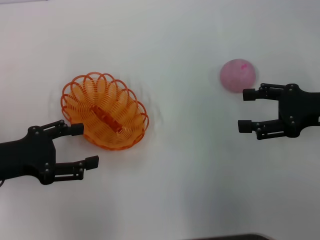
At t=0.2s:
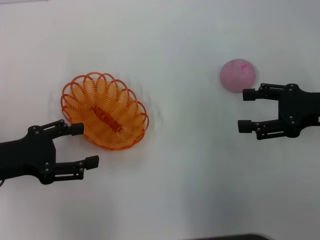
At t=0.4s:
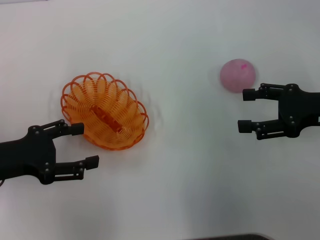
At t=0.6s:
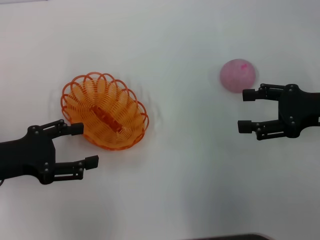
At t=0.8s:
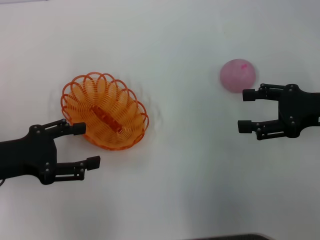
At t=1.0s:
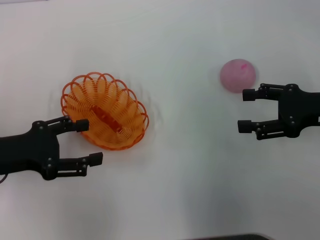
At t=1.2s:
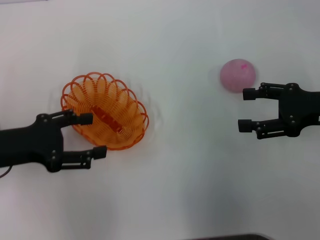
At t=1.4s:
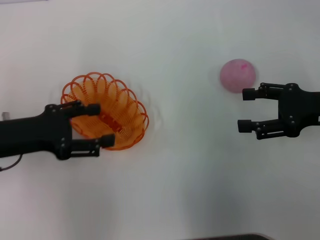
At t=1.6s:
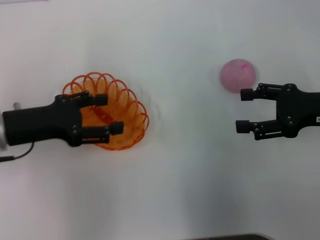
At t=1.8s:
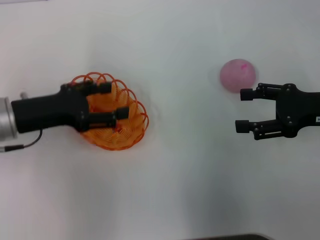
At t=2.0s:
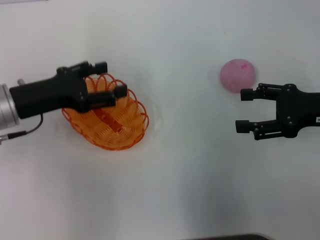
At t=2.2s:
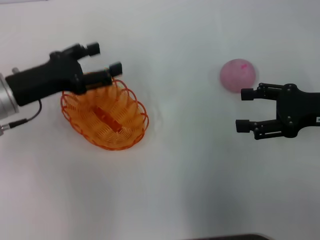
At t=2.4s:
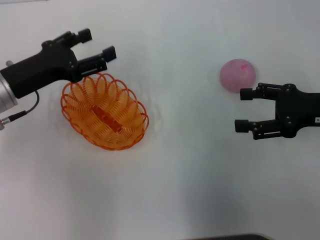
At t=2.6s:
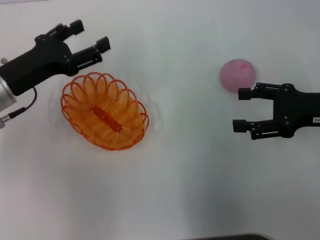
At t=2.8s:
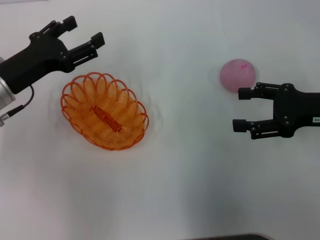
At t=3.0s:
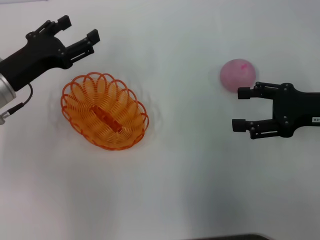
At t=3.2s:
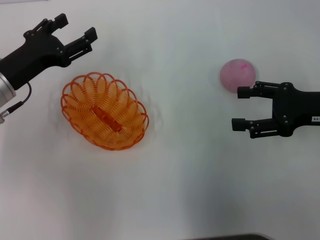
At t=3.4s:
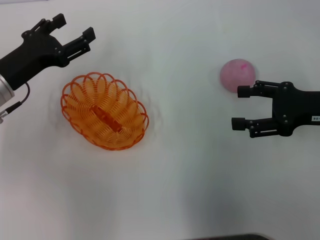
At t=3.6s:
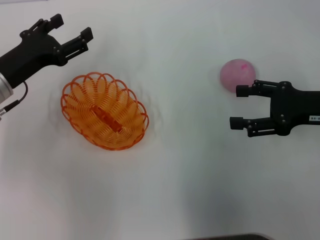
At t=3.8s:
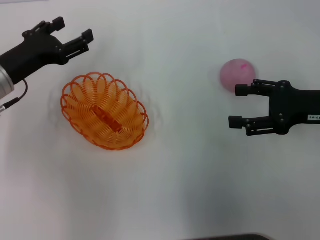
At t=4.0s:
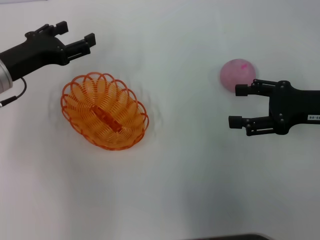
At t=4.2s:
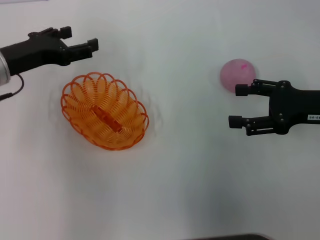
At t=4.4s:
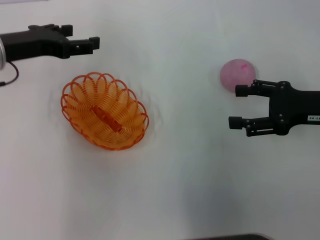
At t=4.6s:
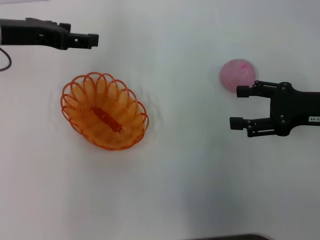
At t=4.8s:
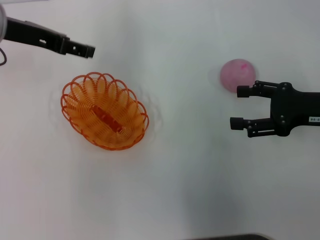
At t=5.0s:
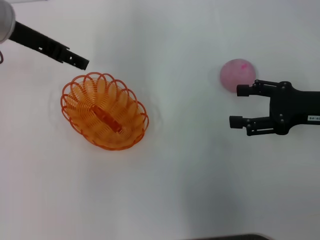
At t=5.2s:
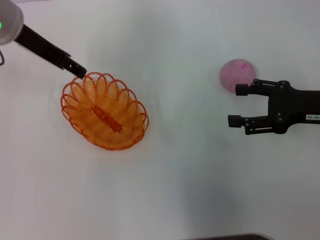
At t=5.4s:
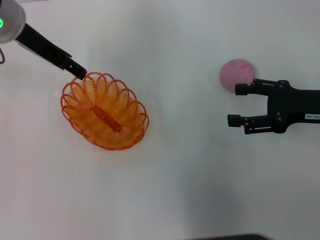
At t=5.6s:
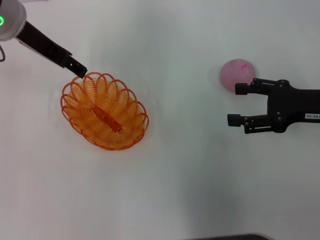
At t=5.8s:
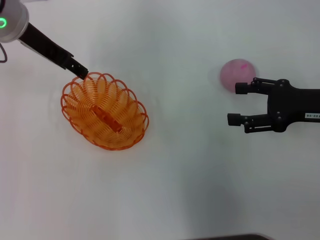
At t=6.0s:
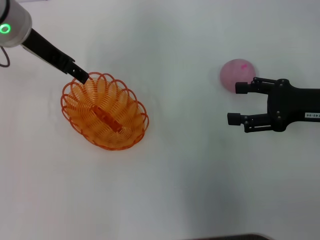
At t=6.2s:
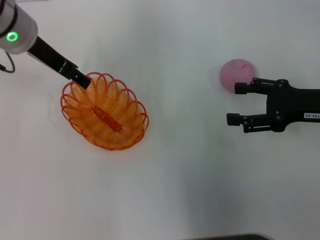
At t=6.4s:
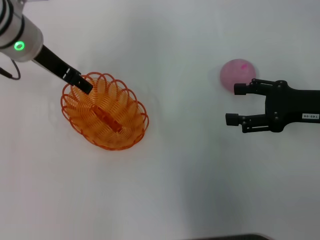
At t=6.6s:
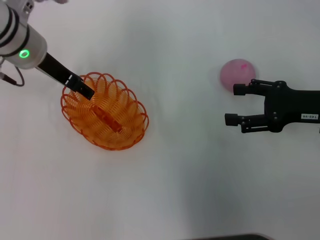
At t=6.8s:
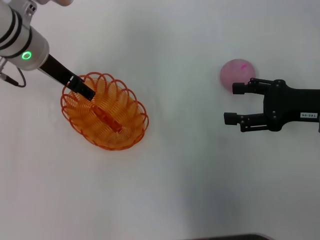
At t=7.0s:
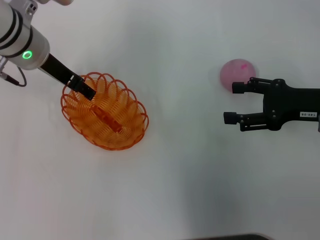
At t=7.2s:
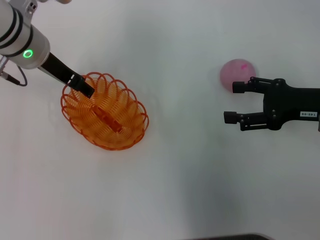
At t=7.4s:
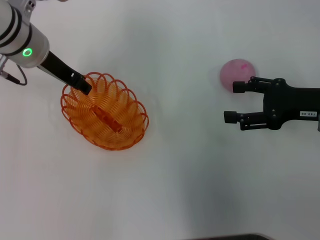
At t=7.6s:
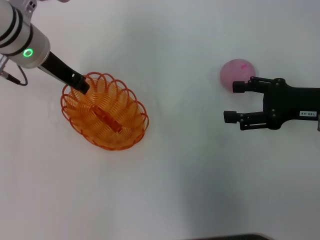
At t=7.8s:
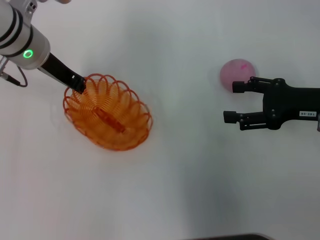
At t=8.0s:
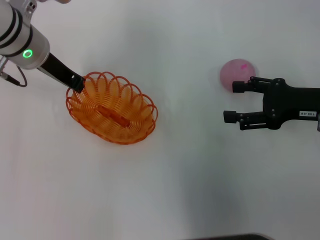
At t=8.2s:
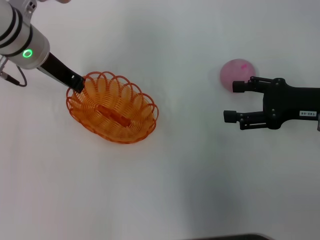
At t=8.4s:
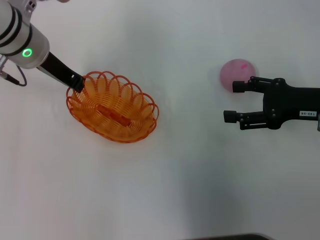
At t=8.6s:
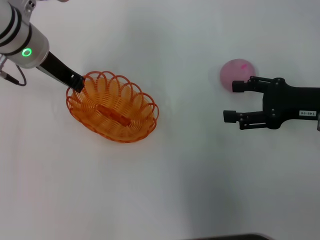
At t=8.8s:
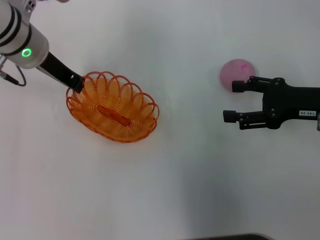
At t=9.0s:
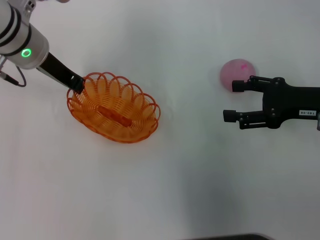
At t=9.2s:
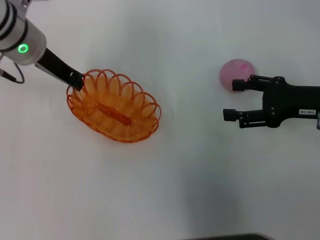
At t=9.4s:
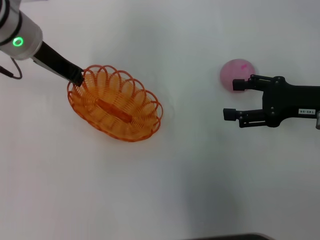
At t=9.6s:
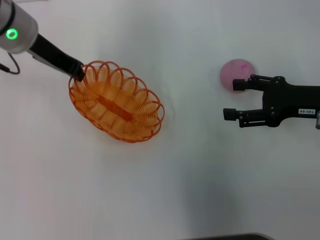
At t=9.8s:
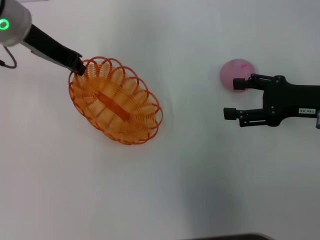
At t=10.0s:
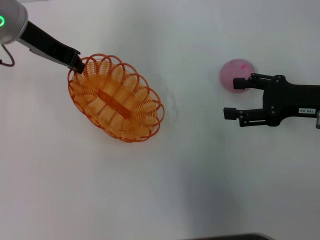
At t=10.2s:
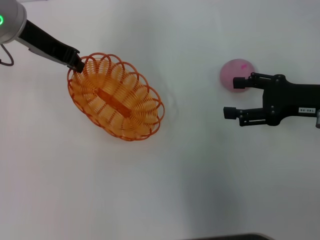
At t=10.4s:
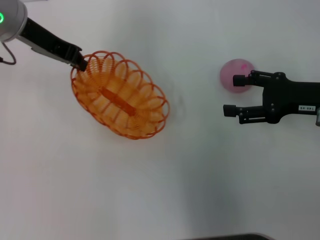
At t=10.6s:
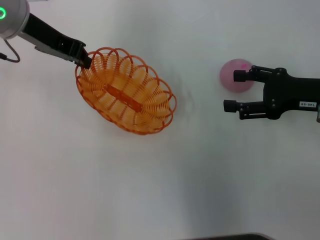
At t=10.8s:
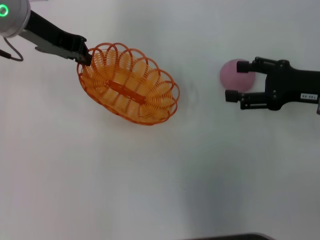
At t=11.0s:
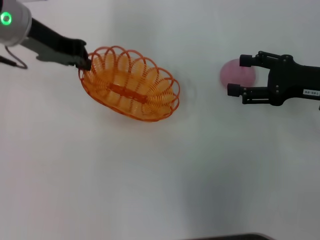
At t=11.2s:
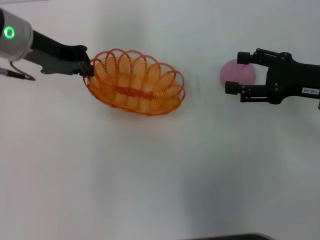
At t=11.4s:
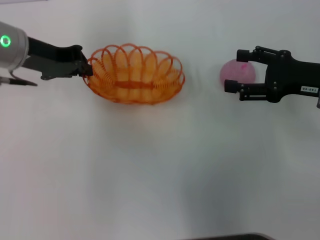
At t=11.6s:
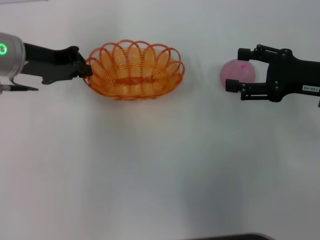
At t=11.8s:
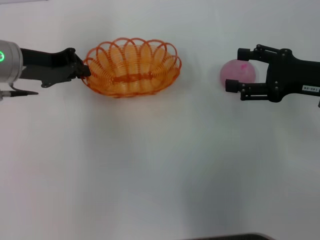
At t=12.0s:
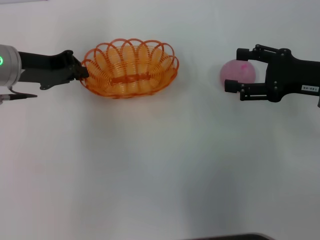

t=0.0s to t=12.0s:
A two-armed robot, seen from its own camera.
Step, t=0.0s to t=10.2s: Pick up the basket with the left gripper.
t=0.0s to t=1.6s: The left gripper moves roughly 5 cm.
t=3.0s to t=4.4s: The left gripper shifts roughly 5 cm upward.
t=4.4s to t=6.0s: The left gripper heads to the right and upward, covering approximately 10 cm.
t=6.0s to t=7.6s: The left gripper closes up.
t=7.6s to t=9.0s: The left gripper closes.
t=9.0s to t=10.4s: The left gripper shifts roughly 5 cm upward.
t=10.4s to t=12.0s: The left gripper heads downward, covering some 10 cm.

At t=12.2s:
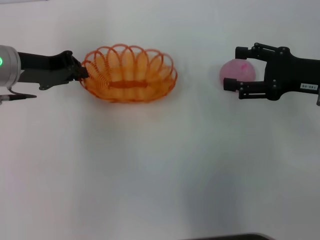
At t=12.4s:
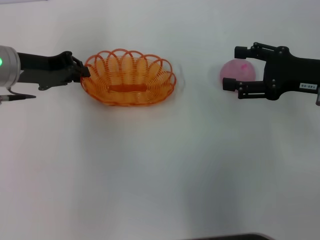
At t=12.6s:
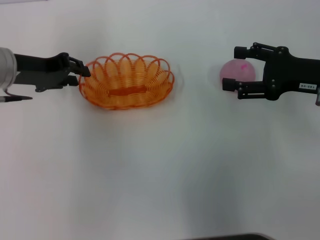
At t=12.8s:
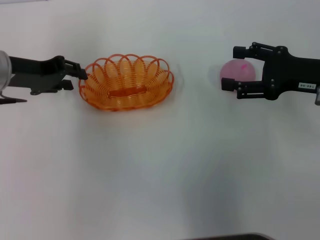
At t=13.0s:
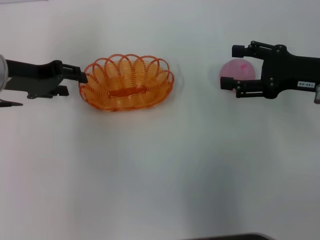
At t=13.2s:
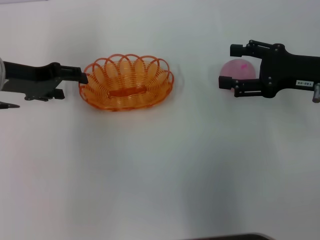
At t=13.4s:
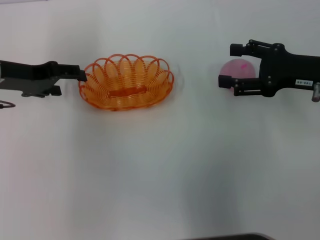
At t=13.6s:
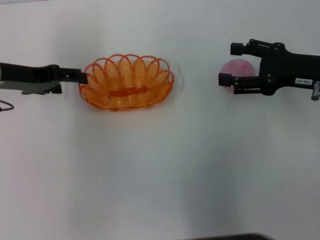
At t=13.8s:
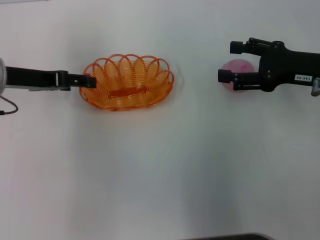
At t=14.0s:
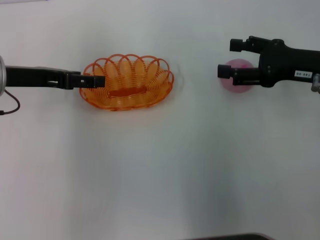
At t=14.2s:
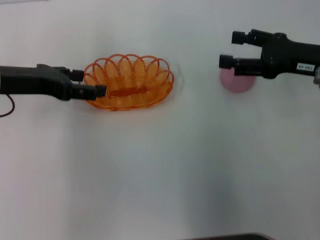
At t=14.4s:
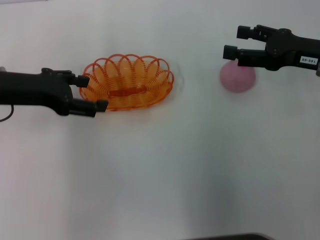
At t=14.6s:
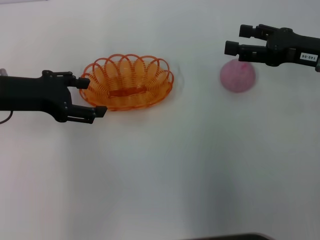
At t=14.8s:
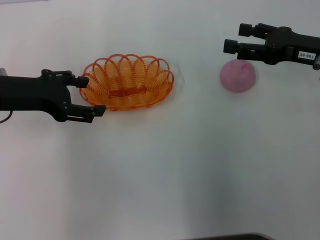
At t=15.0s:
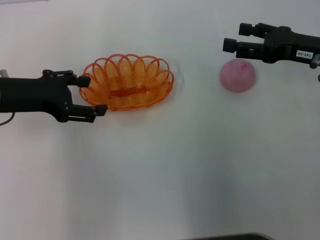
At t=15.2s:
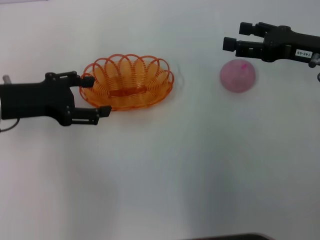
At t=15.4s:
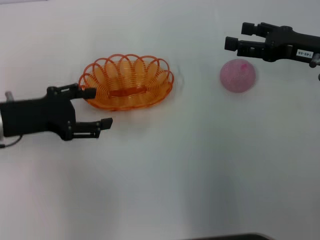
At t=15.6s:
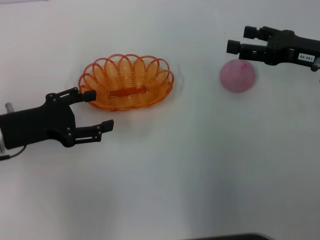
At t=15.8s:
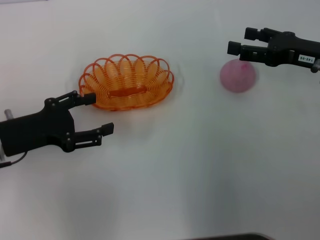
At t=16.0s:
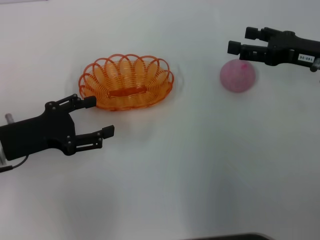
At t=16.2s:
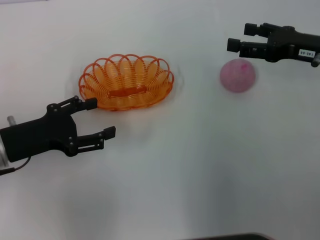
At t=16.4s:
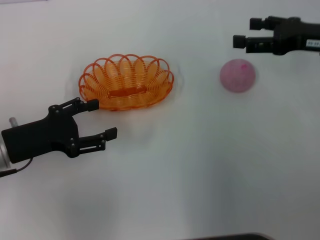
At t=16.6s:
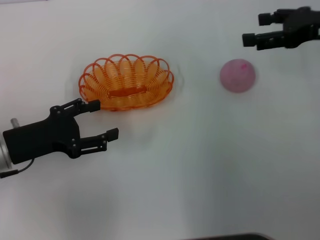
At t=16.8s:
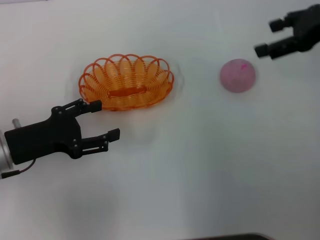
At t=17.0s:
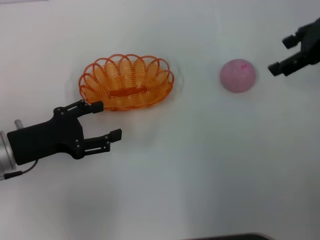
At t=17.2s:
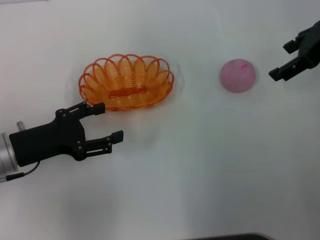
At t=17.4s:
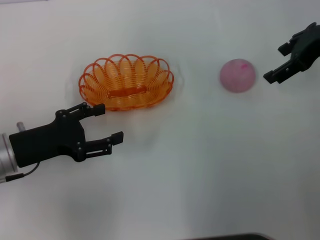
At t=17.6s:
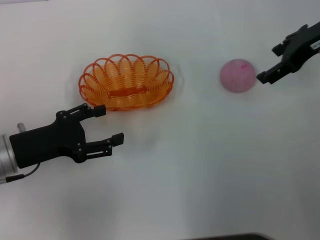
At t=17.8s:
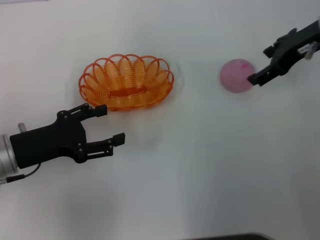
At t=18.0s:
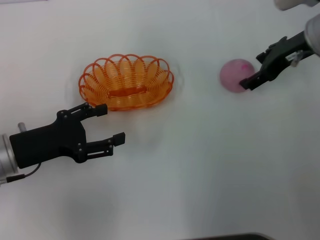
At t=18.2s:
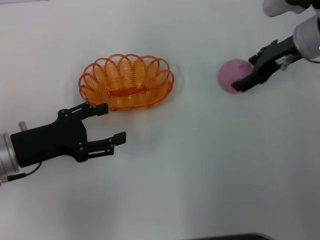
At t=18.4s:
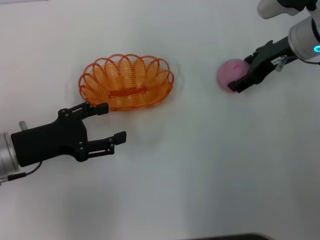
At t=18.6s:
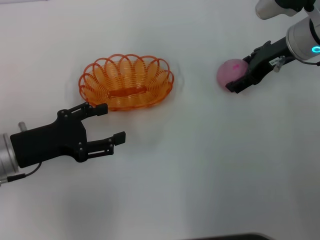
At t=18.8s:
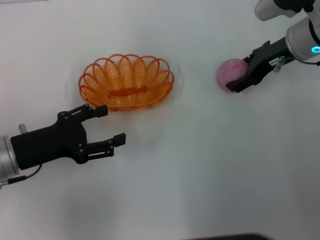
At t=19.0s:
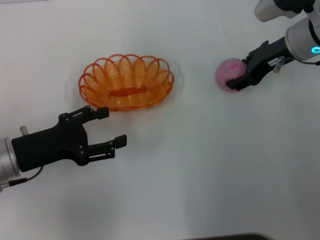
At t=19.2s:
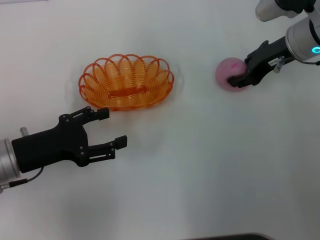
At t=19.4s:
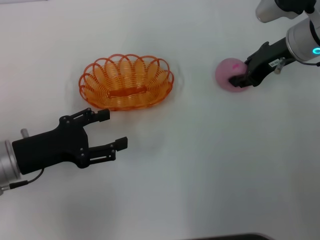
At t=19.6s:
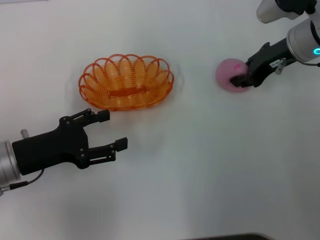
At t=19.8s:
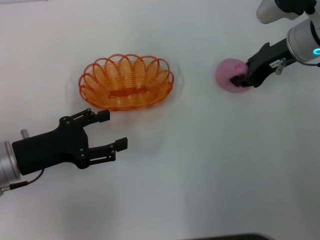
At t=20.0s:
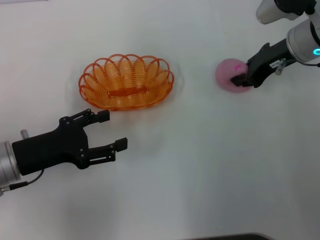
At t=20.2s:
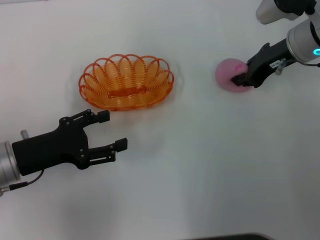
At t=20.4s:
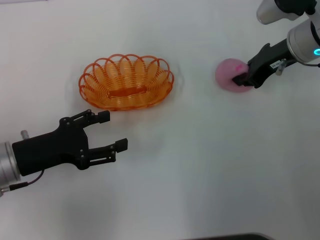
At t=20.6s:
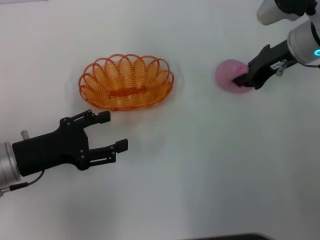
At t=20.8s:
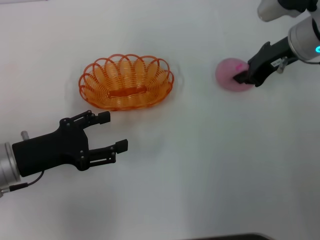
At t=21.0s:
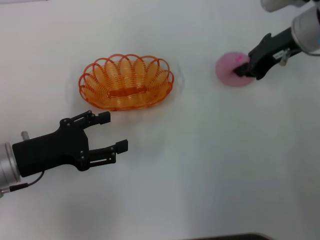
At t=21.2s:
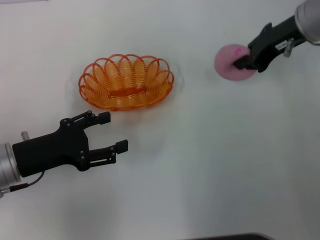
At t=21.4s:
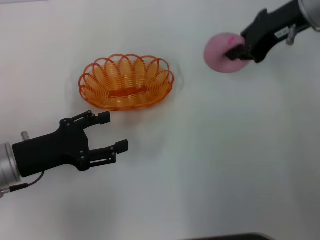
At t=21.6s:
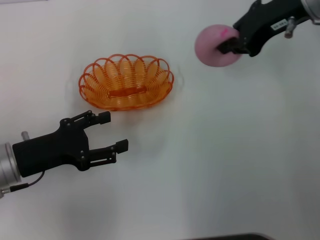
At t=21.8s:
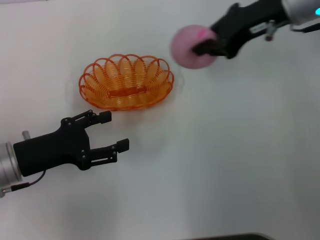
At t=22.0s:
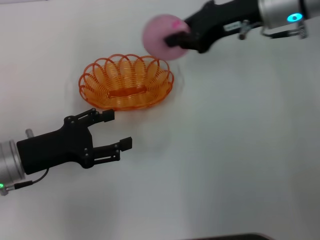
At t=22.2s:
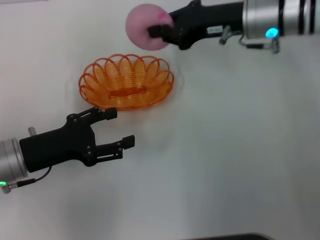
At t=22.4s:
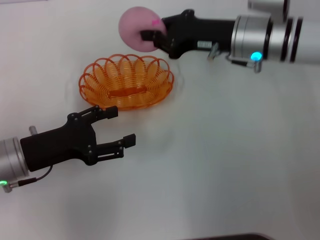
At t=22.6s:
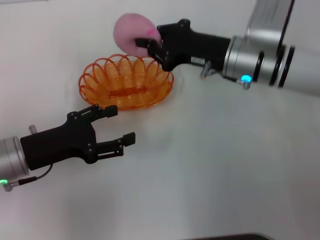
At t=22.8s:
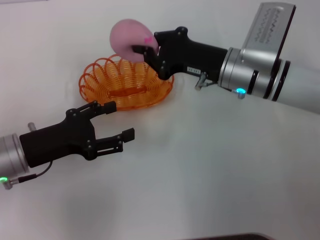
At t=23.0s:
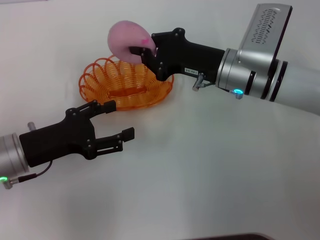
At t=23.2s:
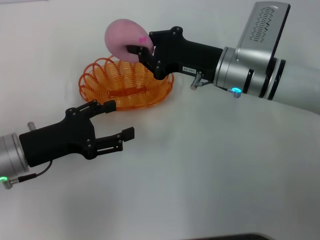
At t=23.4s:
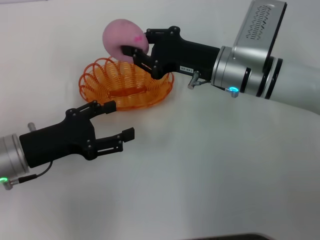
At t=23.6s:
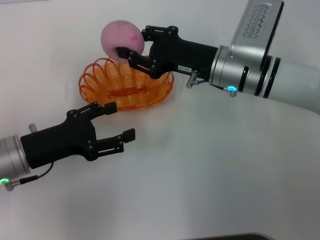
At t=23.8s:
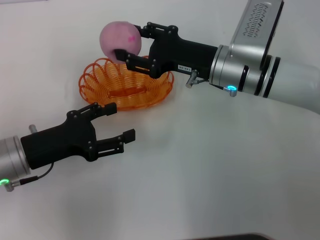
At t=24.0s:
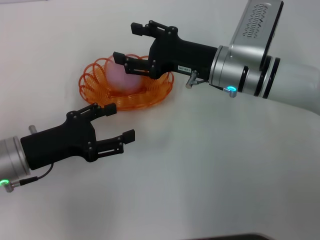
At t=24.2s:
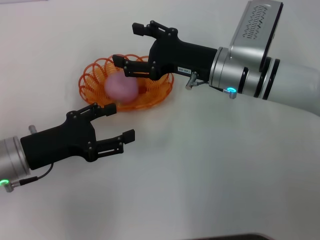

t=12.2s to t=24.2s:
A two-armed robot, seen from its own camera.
Step, t=12.2s to t=14.8s: Place the basket in the center of view with the left gripper.
Step, t=15.0s to t=21.2s: Pick up the peach with the right gripper.
t=12.2s to t=13.8s: The left gripper opens up.
t=15.2s to t=16.6s: The left gripper shifts some 10 cm downward and backward, while the right gripper goes roughly 5 cm upward.
t=16.6s to t=18.2s: The right gripper travels to the left by approximately 5 cm.
t=18.2s to t=19.8s: The right gripper closes.
t=19.8s to t=21.2s: The right gripper shifts about 5 cm upward.
t=21.2s to t=22.6s: The right gripper moves downward and to the left, some 10 cm.
t=22.6s to t=24.2s: The right gripper opens.
